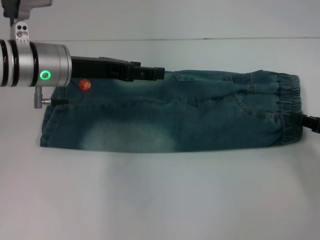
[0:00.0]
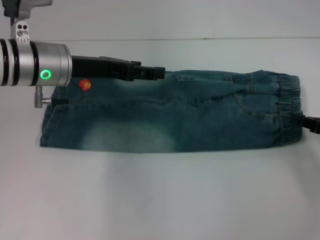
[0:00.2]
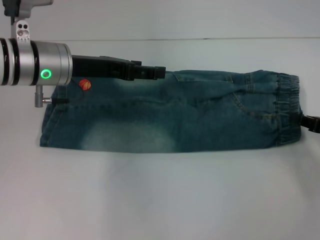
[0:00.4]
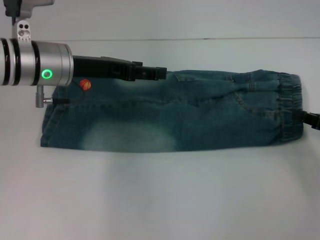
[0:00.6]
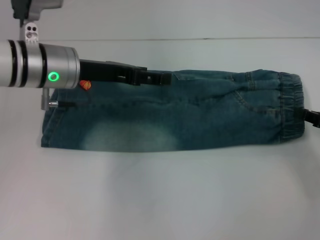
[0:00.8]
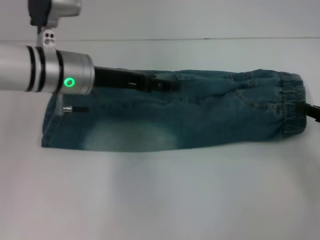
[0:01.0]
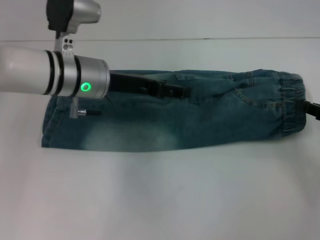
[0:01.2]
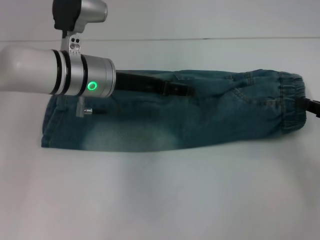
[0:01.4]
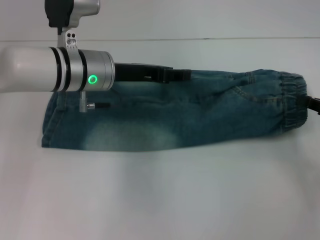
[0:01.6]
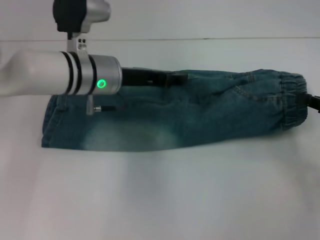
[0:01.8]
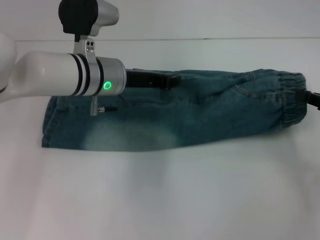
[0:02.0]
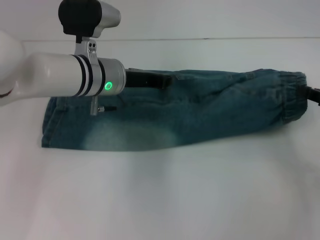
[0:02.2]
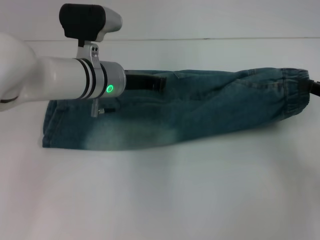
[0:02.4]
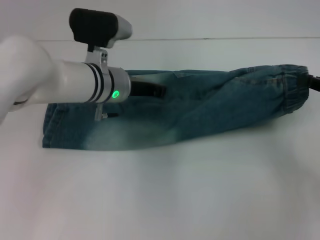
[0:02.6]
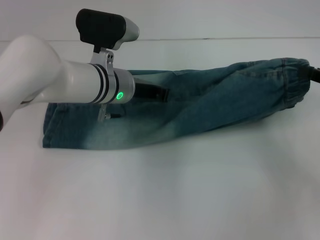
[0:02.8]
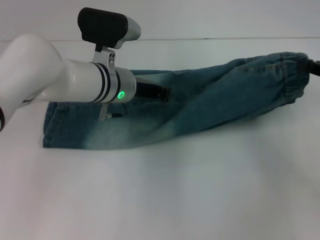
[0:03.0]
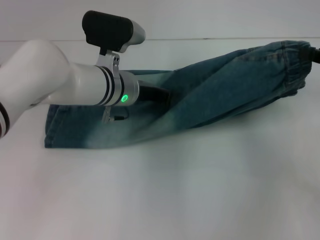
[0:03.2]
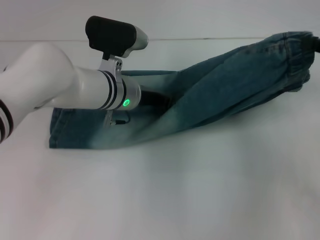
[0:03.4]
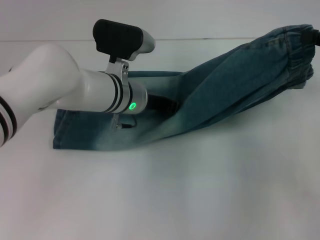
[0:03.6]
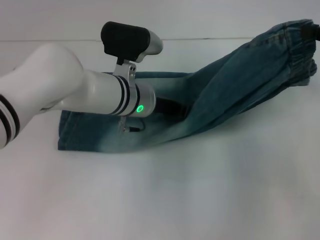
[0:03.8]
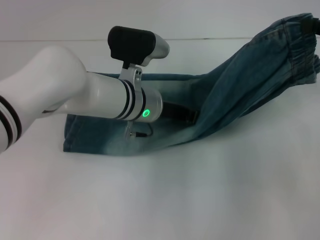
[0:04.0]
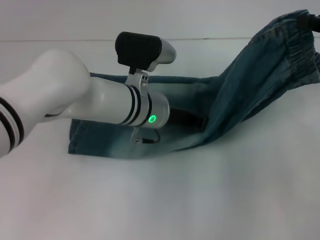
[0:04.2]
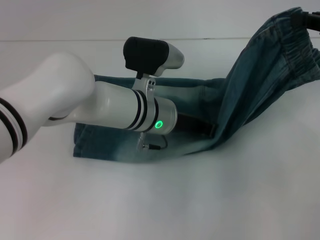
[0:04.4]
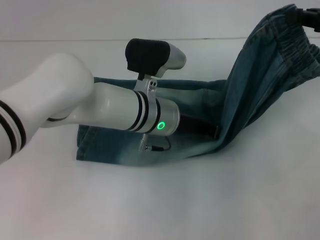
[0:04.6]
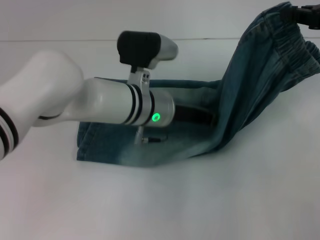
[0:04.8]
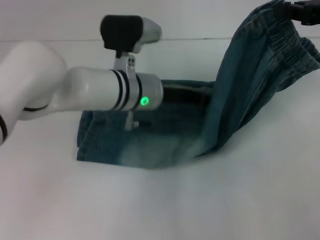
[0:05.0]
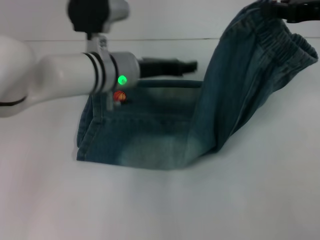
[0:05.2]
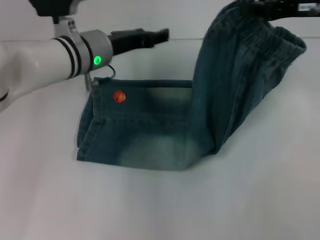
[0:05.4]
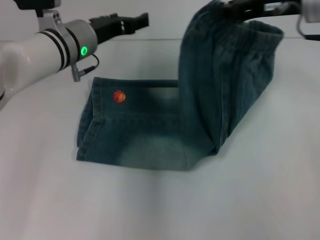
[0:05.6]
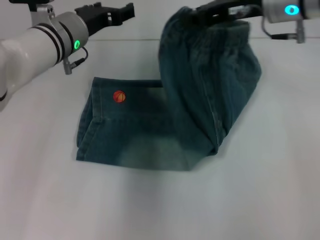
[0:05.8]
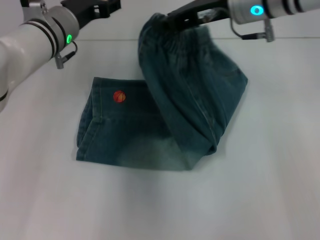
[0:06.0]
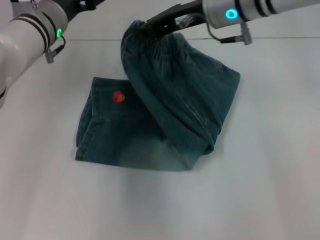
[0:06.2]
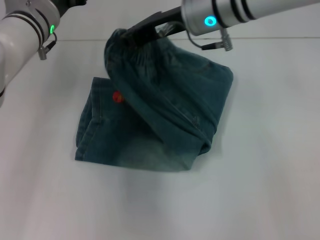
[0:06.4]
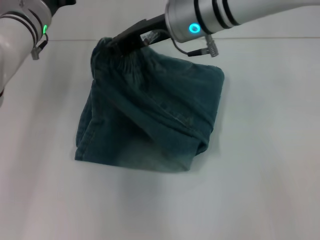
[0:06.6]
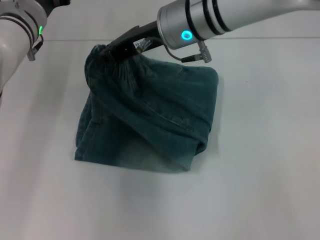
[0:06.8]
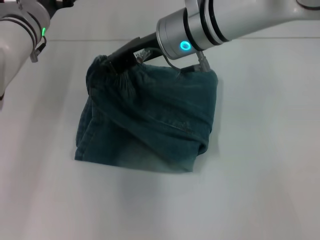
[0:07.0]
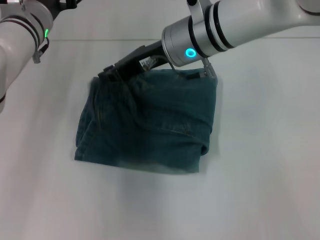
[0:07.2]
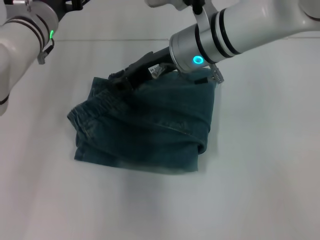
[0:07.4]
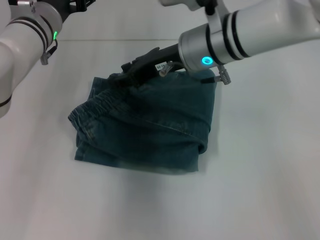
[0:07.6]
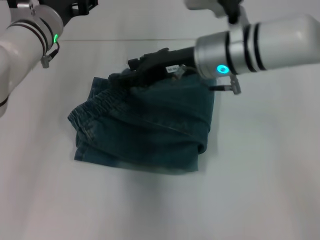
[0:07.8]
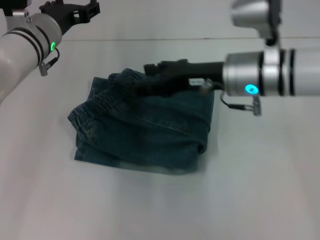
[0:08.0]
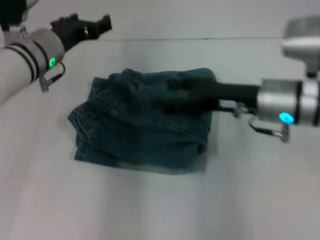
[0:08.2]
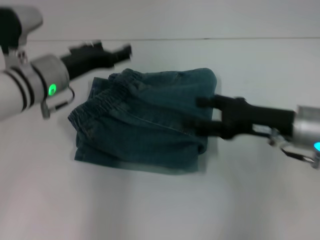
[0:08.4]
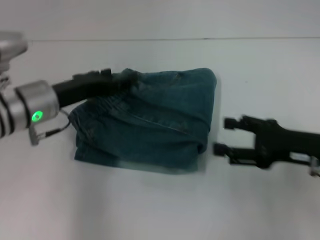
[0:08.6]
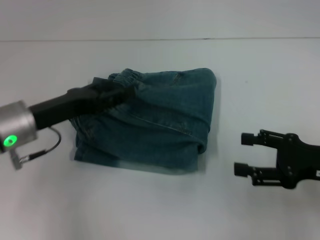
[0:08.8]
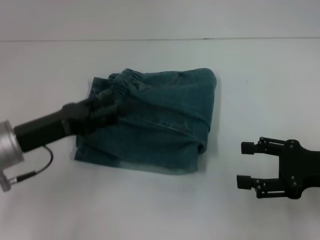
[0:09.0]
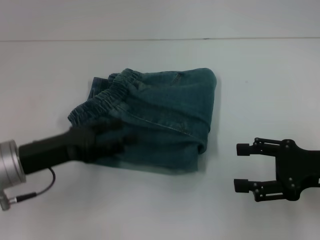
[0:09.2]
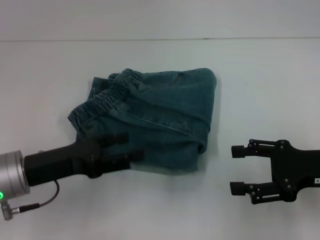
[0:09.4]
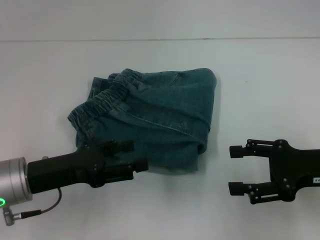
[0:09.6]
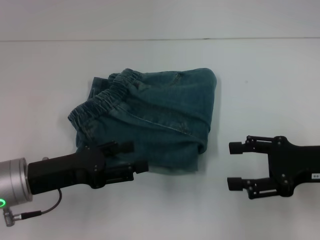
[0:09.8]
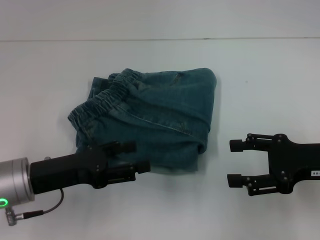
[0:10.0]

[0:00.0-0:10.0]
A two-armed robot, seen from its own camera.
Step, 0:01.0 to 0:04.6: Press the middle of the pants with your left hand.
Step, 0:04.8 to 0:07.2: Fold to the left with your right hand.
0:00.0 to 0:01.4: The right gripper closes up. The left gripper goes approximately 5 cm to the right.
0:01.4 to 0:02.8: The right gripper moves upward, roughly 5 cm. The left gripper moves roughly 5 cm, and closes up.
0:02.8 to 0:04.2: The left gripper shifts by about 5 cm. The right gripper shifts about 10 cm upward.
0:04.2 to 0:05.8: The left gripper moves to the left, forward and upward, approximately 15 cm, and opens up. The right gripper heads to the left and forward, covering some 20 cm.
0:05.8 to 0:07.2: The right gripper goes some 10 cm to the left.
0:07.2 to 0:08.6: The right gripper travels to the right, backward and downward by roughly 30 cm, and opens. The left gripper shifts approximately 10 cm backward.
0:08.6 to 0:10.0: The left gripper shifts some 10 cm backward.

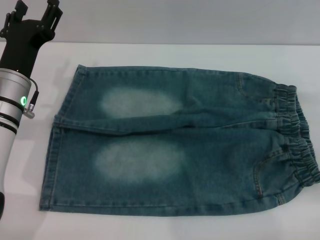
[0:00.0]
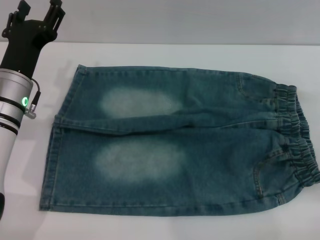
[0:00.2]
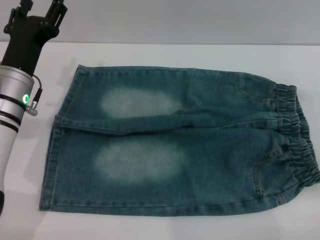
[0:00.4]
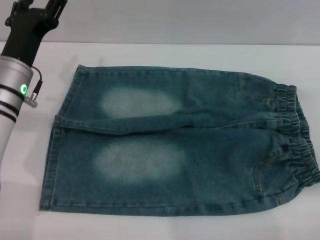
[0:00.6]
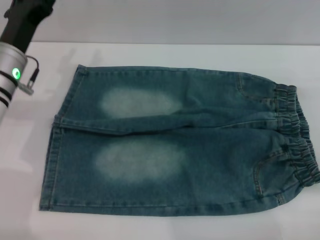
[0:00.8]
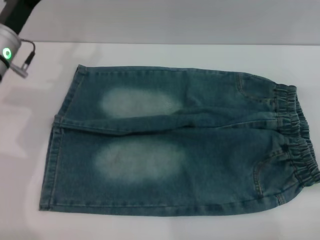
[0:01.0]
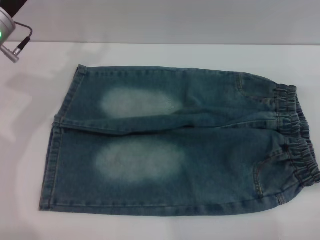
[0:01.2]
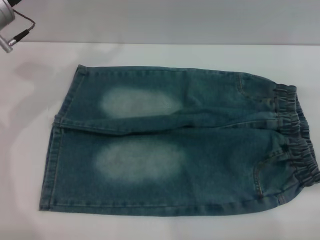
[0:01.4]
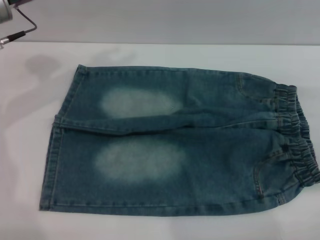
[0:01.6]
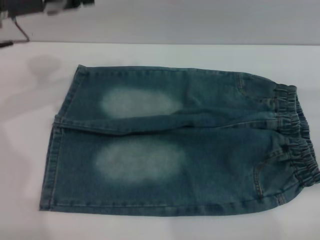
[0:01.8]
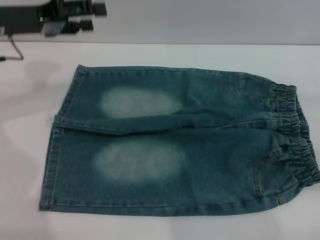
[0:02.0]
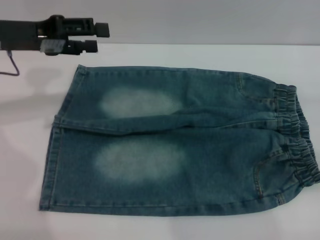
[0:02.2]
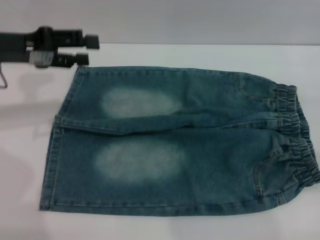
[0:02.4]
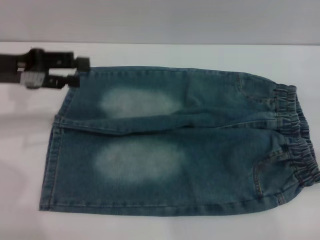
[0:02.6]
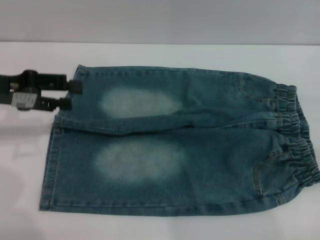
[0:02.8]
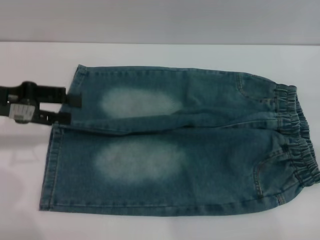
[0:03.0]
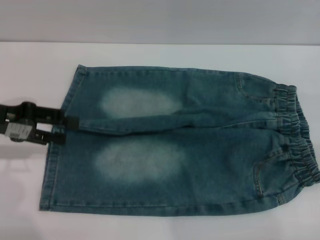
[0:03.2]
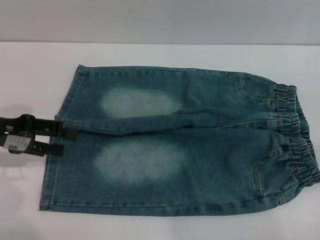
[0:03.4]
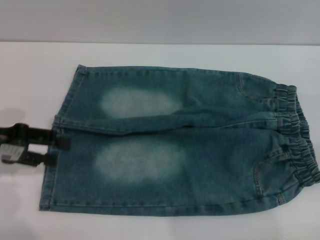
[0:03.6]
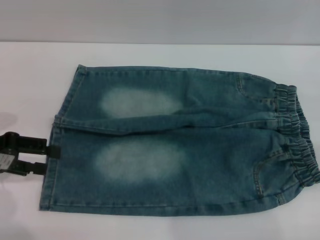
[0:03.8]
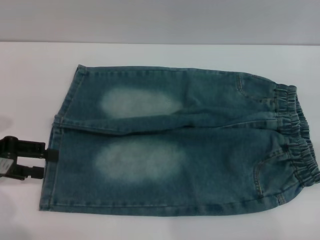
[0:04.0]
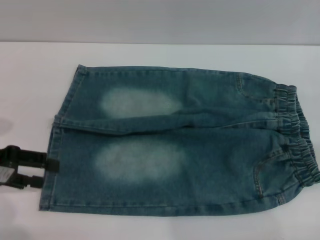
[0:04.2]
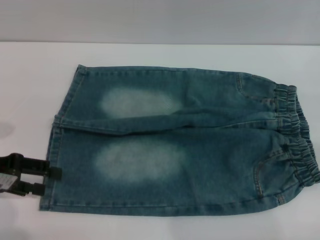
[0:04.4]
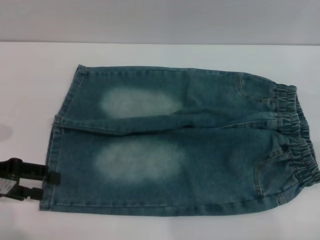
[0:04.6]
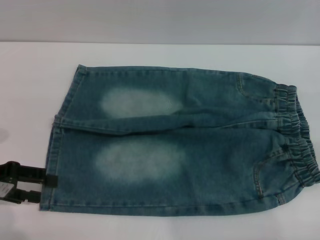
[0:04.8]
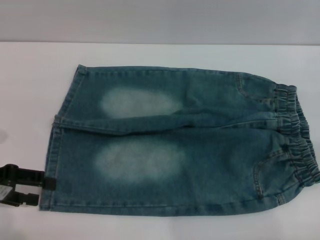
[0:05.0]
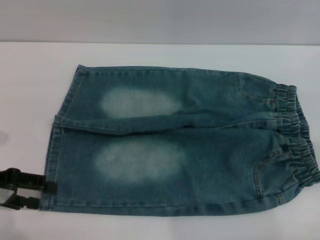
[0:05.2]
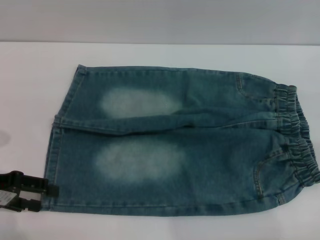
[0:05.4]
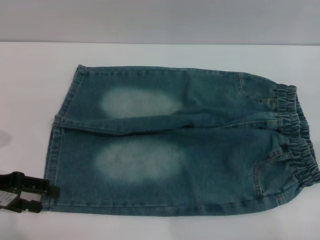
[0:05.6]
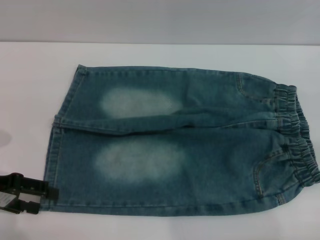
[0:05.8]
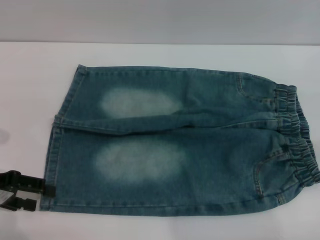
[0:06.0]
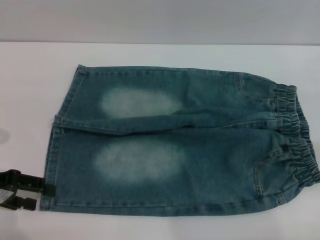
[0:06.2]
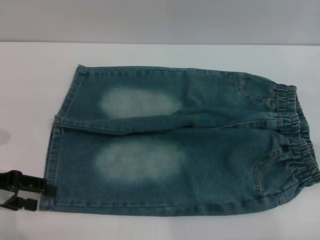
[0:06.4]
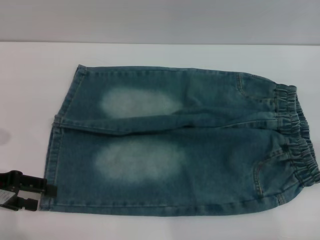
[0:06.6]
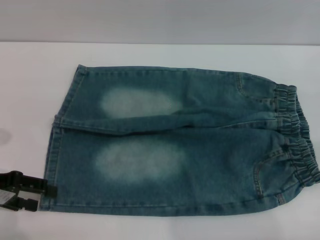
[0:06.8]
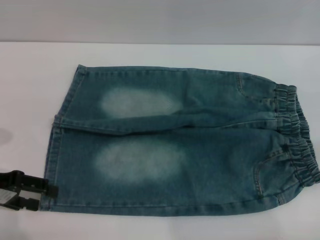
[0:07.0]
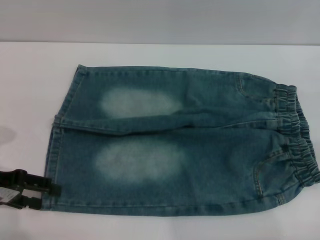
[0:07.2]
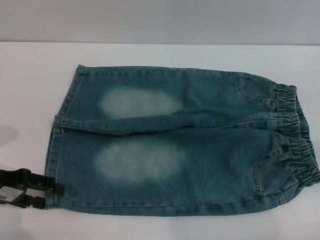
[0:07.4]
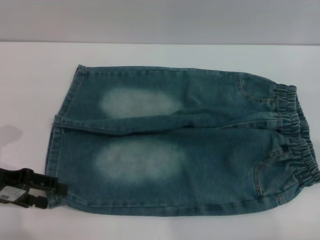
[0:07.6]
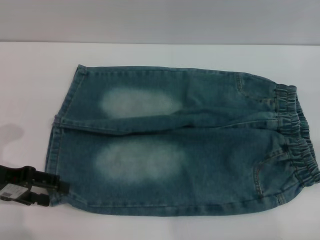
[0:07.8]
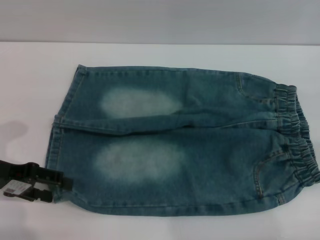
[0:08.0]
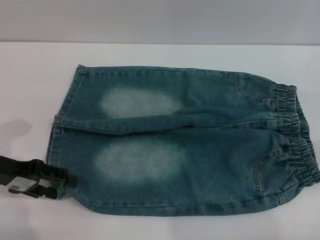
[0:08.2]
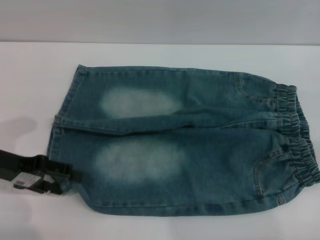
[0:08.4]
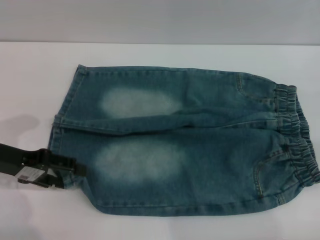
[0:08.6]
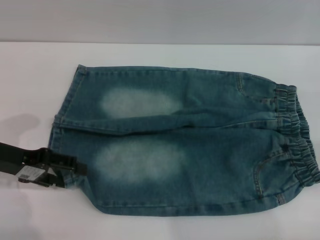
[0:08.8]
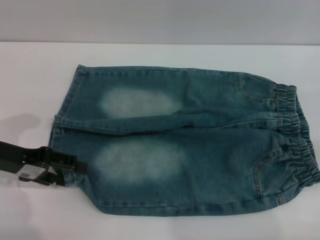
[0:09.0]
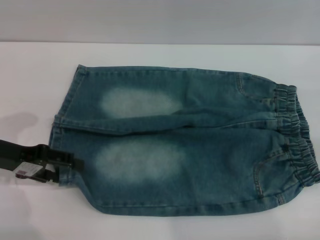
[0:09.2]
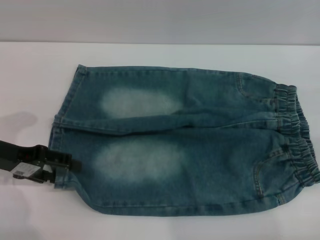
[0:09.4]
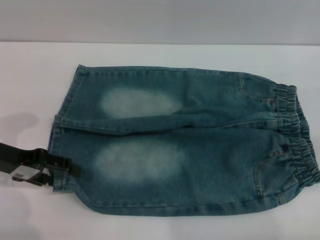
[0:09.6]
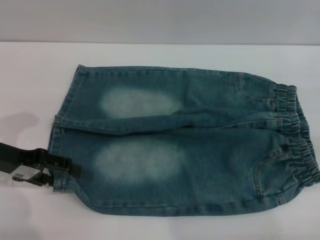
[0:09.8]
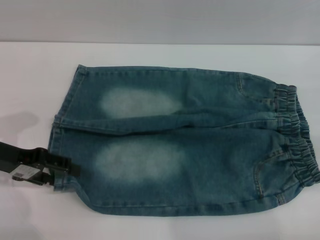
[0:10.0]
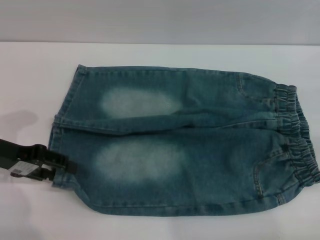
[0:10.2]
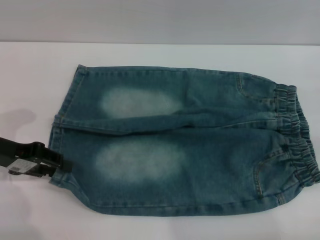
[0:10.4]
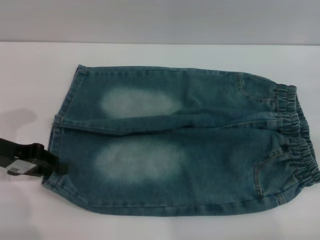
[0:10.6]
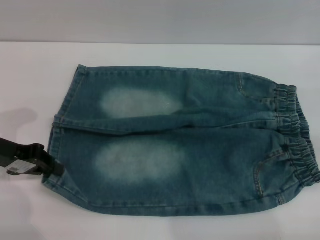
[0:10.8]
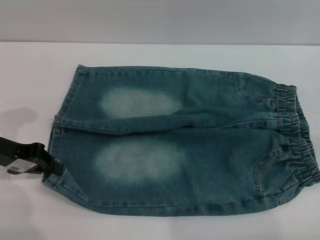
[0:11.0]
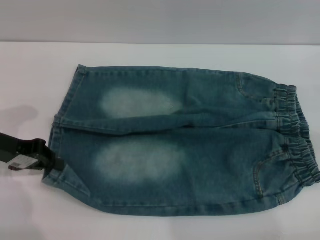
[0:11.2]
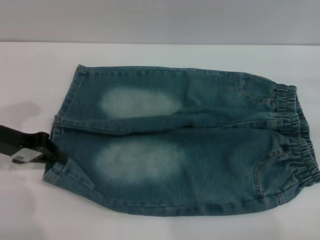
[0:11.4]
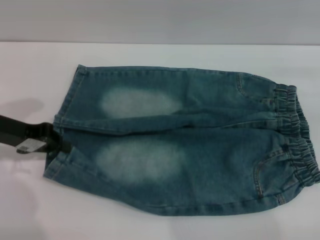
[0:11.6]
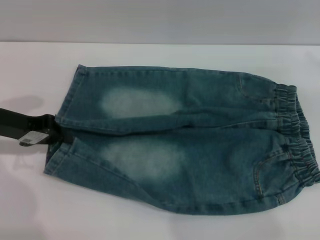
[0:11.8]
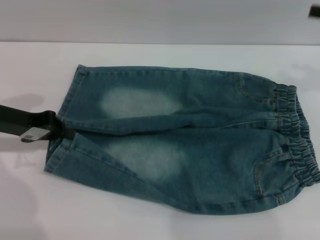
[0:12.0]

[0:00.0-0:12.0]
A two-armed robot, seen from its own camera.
0:00.0 to 0:01.6: The left gripper moves upward and forward, about 15 cm.
0:01.6 to 0:03.0: The left gripper travels backward and to the left by some 10 cm.
0:03.0 to 0:04.4: The left gripper heads backward and downward, covering about 5 cm.
0:04.4 to 0:10.4: The grippers make only small movements.
0:10.4 to 0:12.0: The right gripper goes some 10 cm upward, to the left and forward, while the left gripper closes its fingers.
